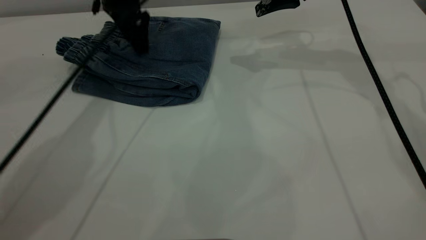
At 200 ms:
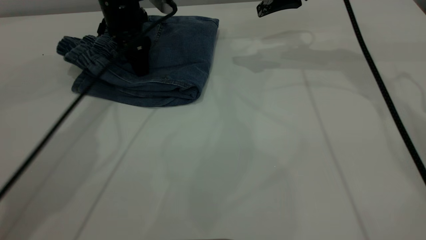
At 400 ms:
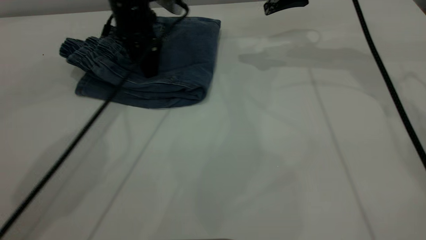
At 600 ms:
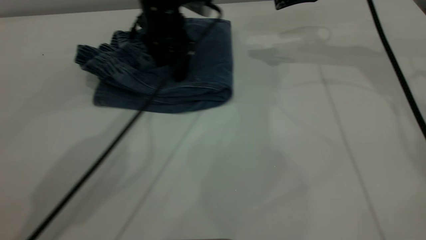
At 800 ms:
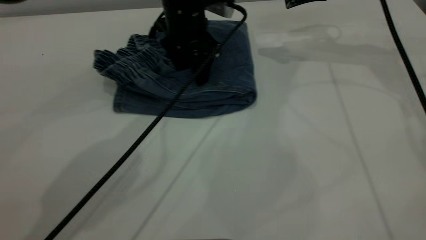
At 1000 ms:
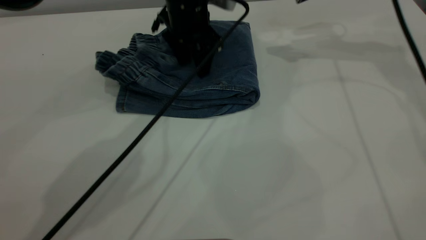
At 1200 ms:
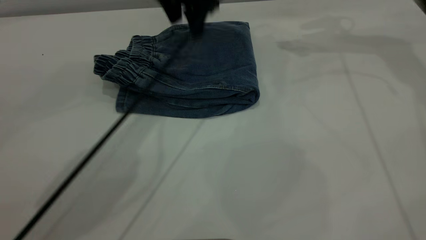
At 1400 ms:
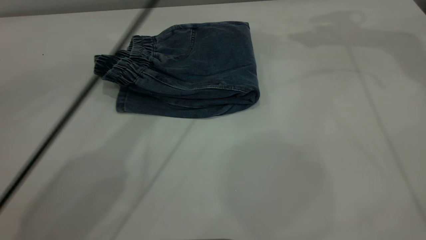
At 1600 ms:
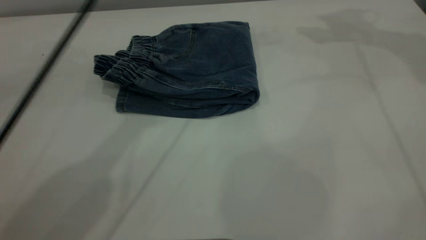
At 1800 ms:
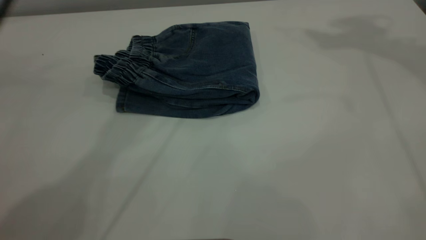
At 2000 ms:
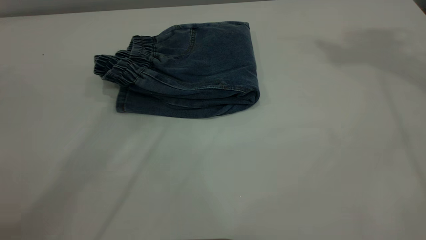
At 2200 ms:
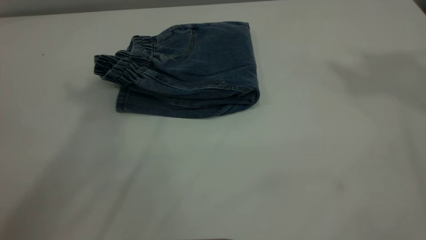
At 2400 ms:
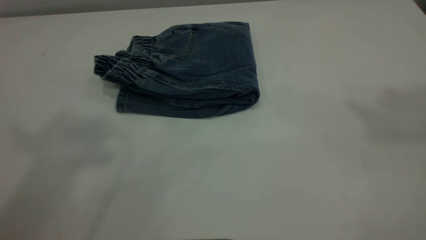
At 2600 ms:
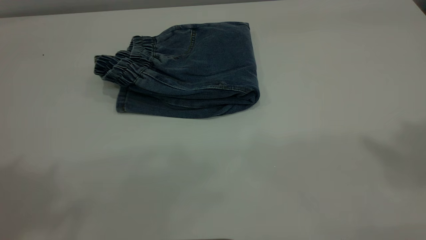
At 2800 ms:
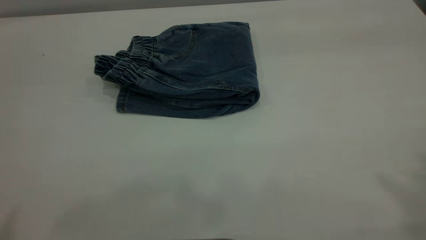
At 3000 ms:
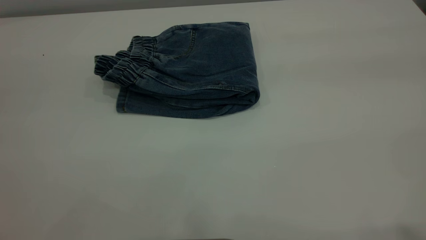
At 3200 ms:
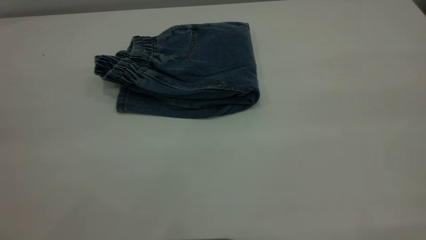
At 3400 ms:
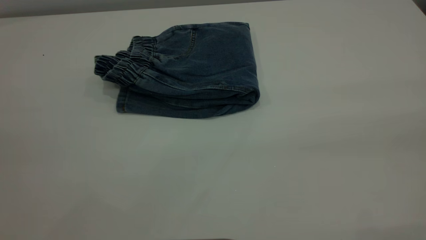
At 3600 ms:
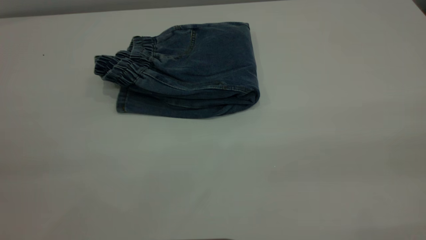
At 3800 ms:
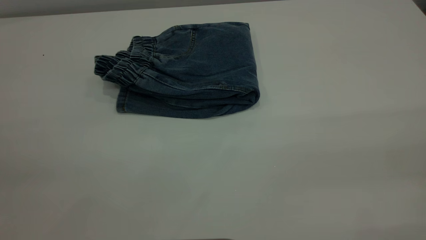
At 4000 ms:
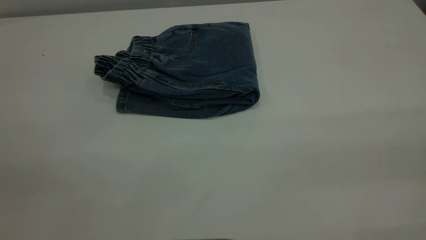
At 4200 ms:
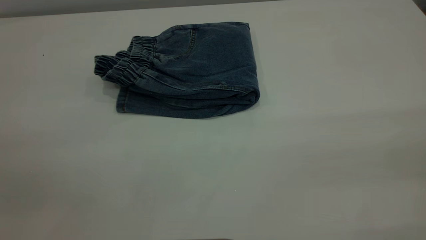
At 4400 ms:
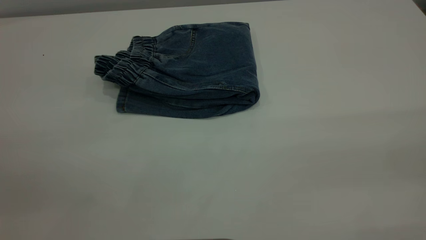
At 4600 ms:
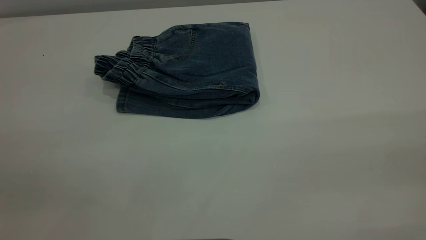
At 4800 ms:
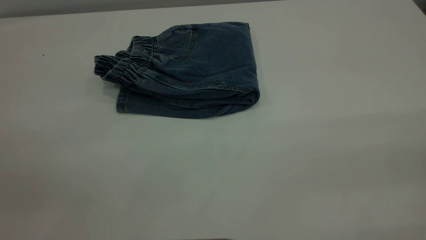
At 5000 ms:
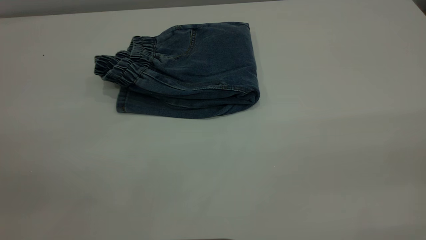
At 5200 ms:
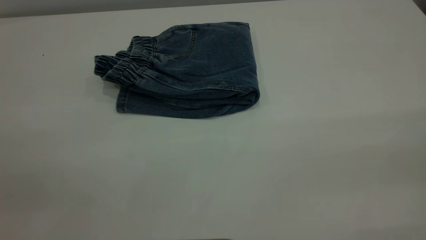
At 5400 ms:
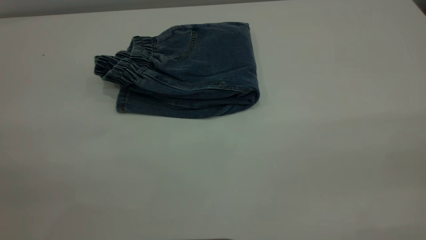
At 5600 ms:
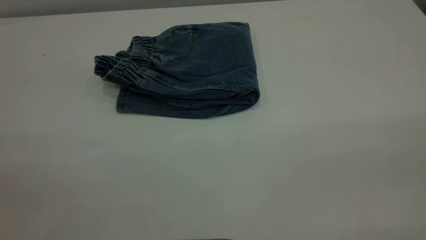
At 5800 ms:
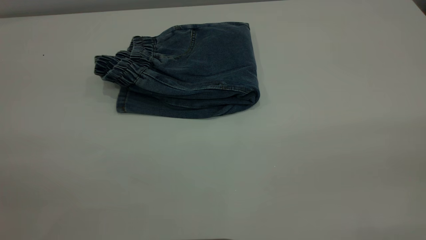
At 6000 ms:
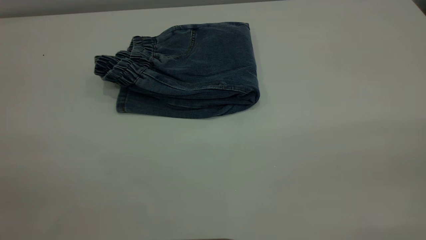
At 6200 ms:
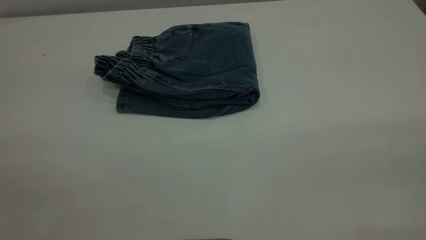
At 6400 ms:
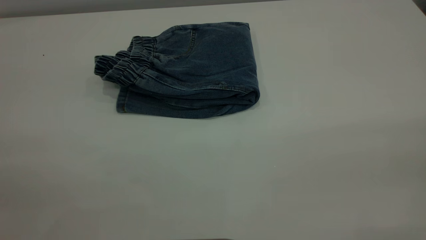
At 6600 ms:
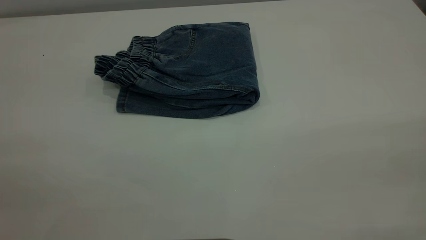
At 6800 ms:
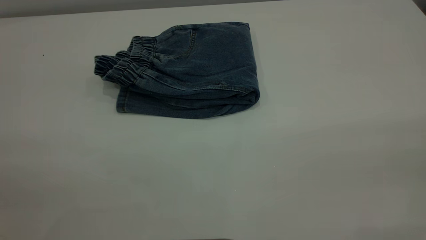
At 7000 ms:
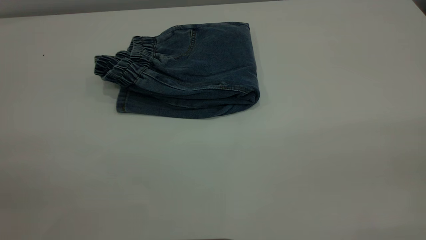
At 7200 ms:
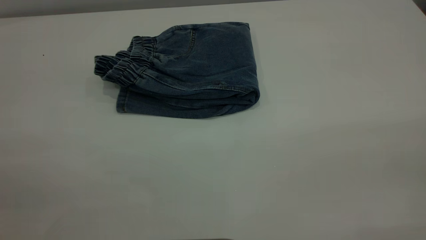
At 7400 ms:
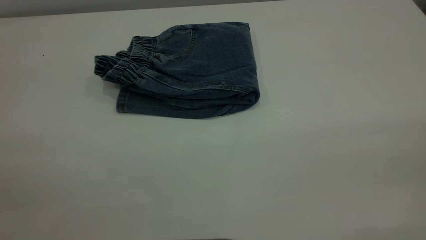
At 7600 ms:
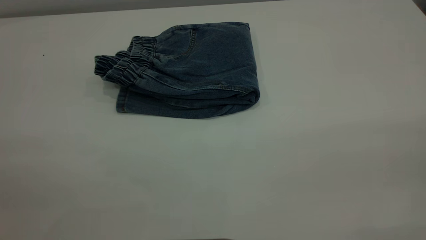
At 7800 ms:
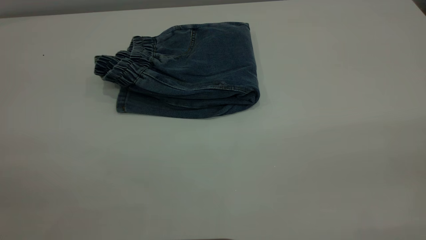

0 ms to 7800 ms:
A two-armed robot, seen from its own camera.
0 ms to 1600 ms: The left gripper travels upward by about 20 cm. The right gripper moves upward and to the right, some 25 cm.
1600 ms to 3200 ms: The left gripper shifts some 50 cm backward and to the left.
6200 ms to 7800 ms: Both grippers stay put.

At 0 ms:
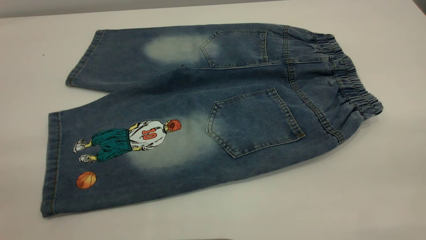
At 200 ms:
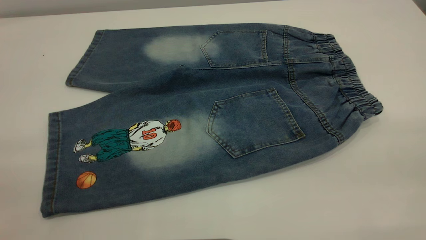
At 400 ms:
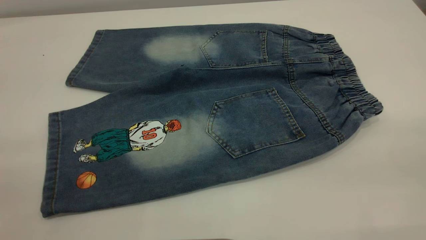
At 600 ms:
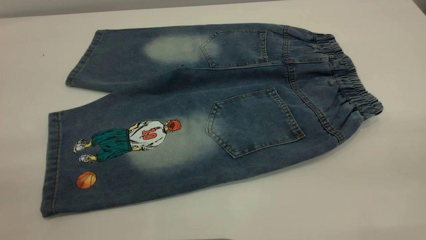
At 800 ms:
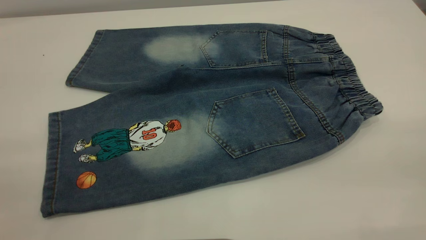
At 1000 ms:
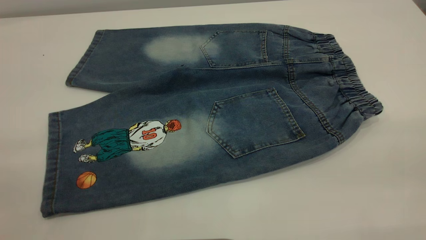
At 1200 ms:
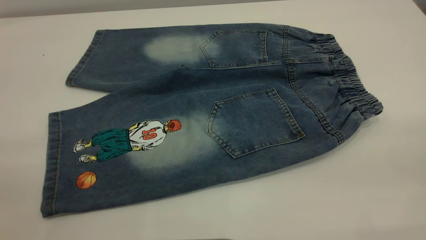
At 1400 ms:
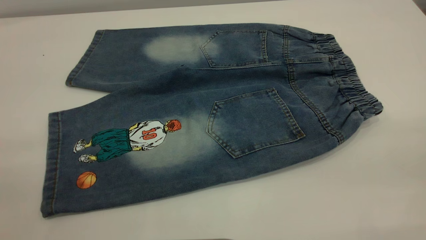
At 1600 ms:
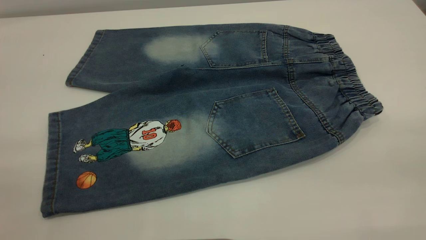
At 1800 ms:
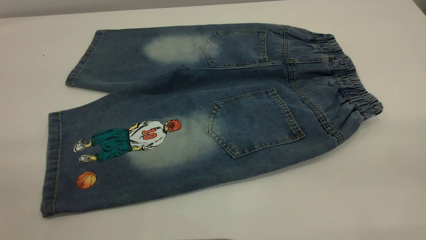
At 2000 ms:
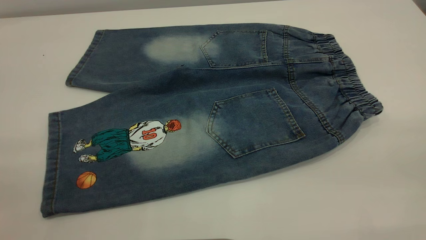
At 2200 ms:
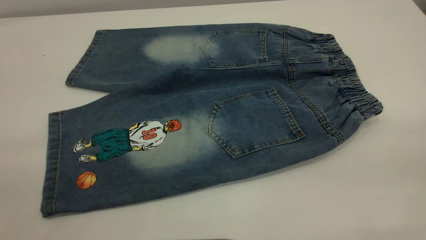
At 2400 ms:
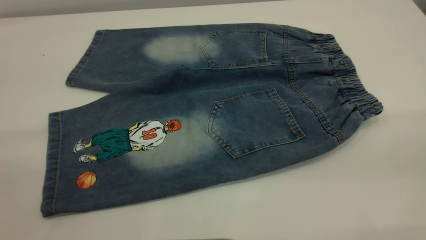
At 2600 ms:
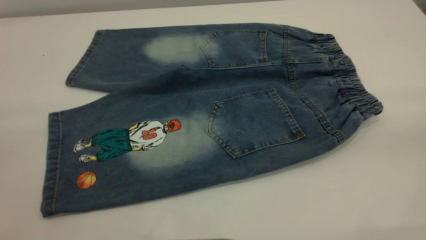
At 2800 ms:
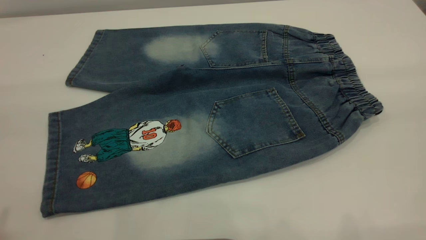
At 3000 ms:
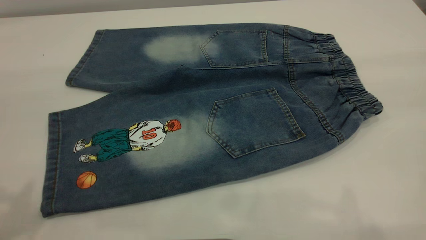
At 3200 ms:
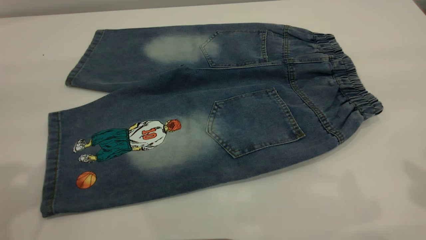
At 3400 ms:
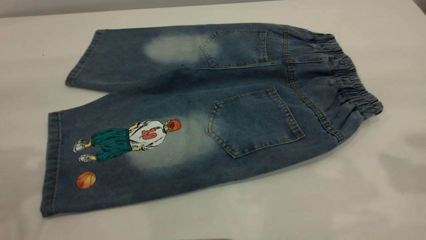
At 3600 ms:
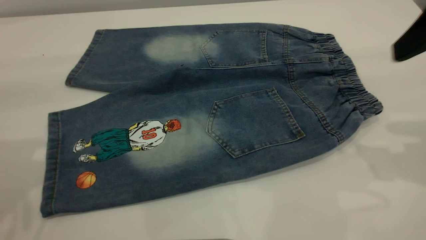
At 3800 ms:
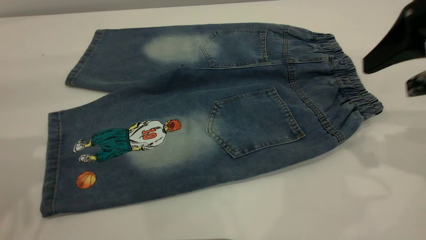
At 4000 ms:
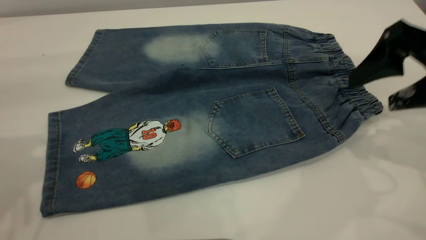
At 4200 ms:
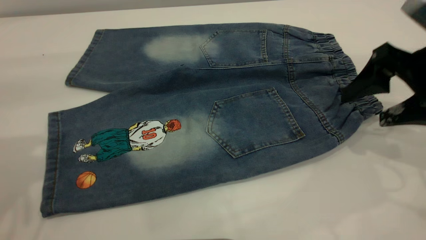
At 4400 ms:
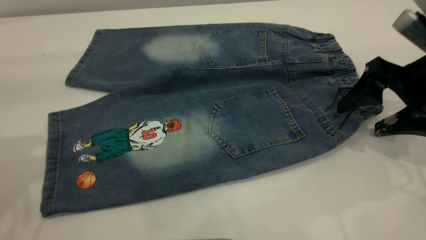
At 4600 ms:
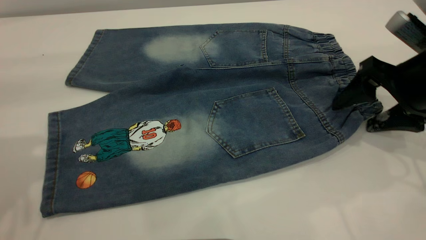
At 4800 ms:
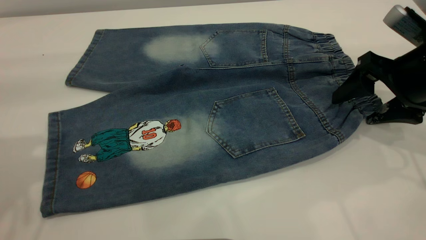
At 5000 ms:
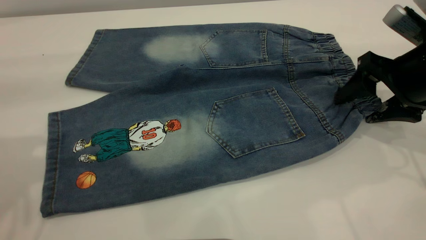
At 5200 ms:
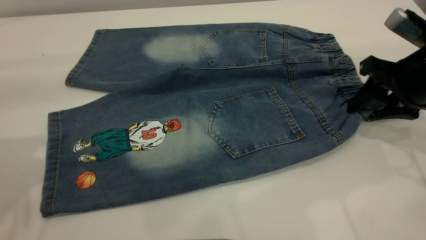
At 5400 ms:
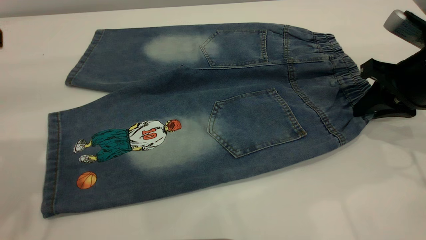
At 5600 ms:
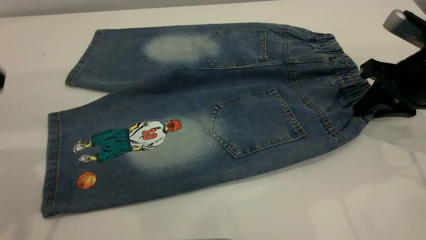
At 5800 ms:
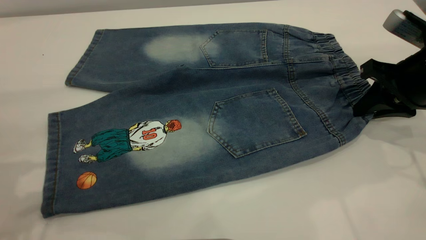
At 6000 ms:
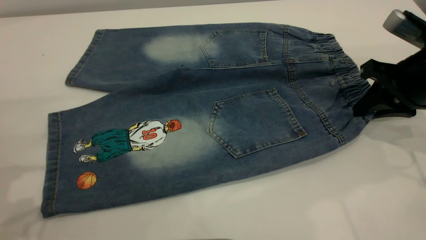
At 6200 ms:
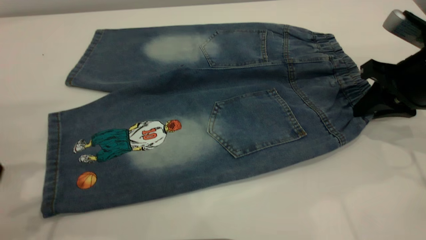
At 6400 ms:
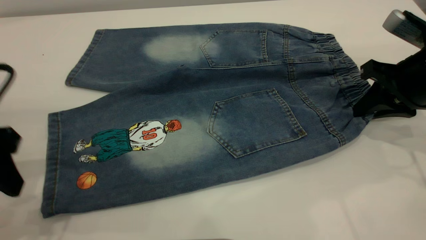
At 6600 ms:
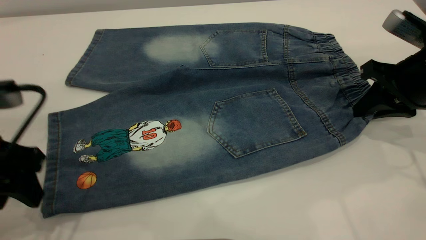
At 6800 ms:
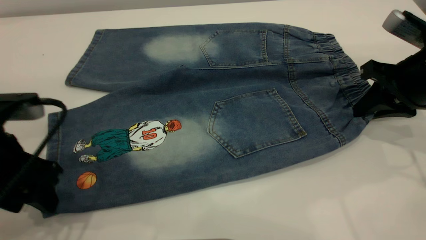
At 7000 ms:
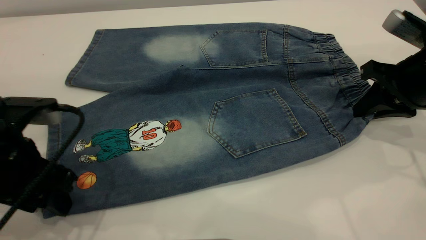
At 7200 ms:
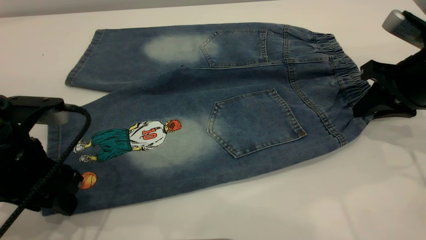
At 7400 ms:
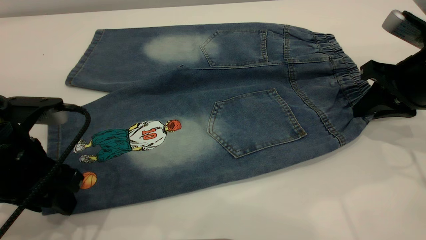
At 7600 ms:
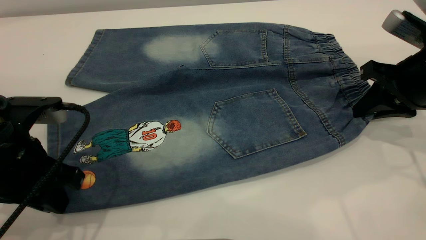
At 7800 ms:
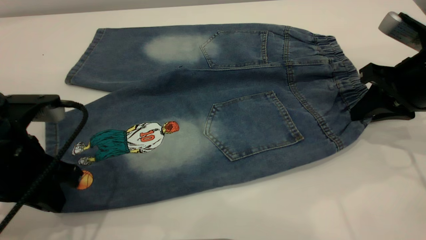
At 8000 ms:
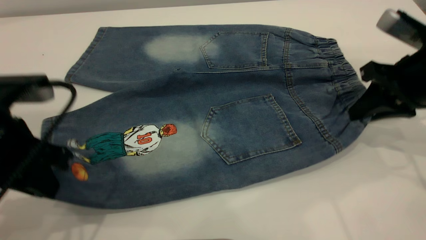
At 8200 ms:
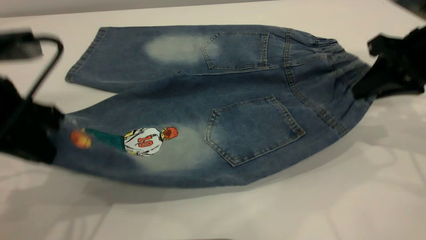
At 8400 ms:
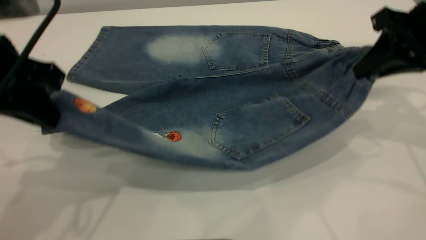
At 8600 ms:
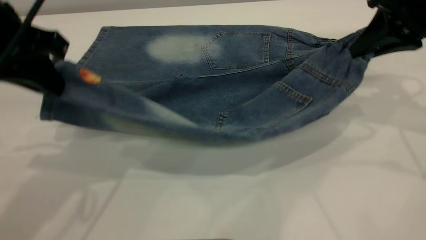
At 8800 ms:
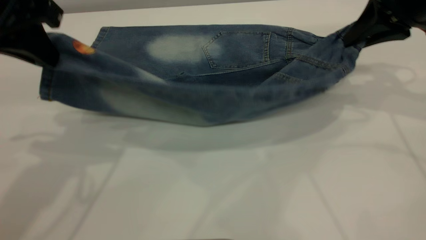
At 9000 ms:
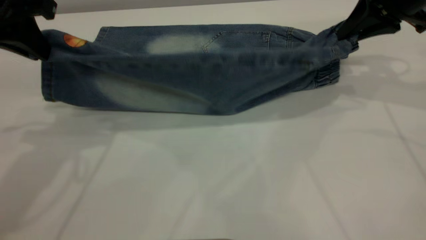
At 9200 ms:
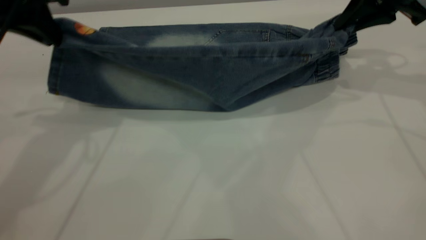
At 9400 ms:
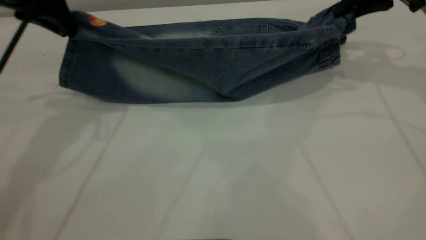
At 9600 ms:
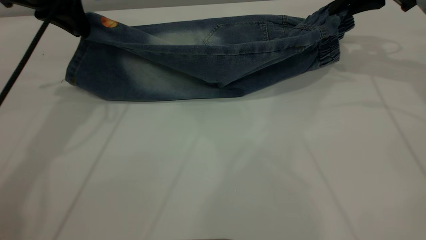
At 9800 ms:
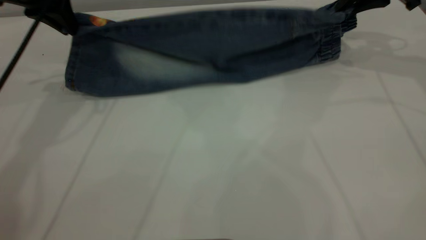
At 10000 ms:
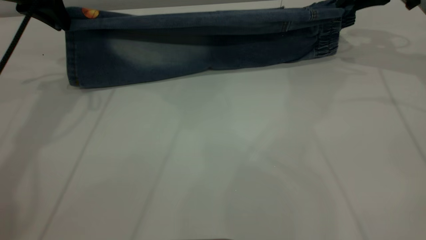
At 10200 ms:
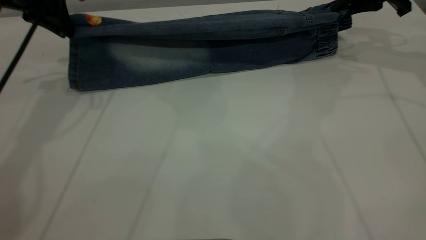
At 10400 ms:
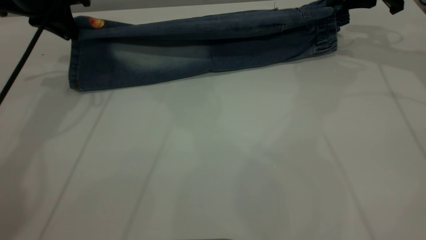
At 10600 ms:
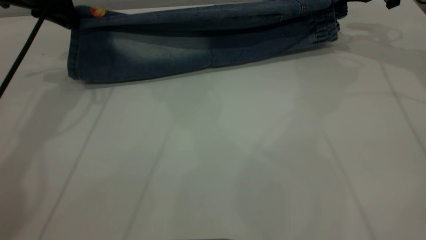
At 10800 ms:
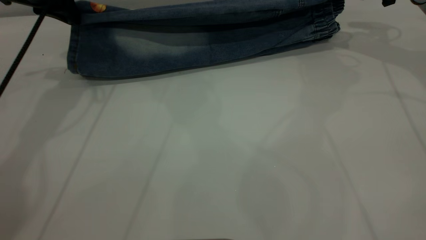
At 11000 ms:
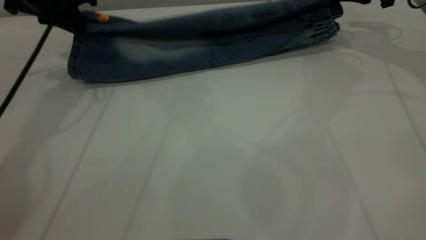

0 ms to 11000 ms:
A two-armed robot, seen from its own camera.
0 ms to 1600 ms: The two grippers keep their place.
3200 ms to 4800 ms: The right gripper goes some 25 cm downward and forward.
4800 ms to 6200 ms: The right gripper closes up.
6200 ms to 7800 ms: The left gripper moves downward and to the right, about 10 cm, and closes up.
7800 ms to 9400 ms: The grippers both shift forward and upward by about 20 cm.
9400 ms to 11000 ms: The right gripper heads forward, covering approximately 5 cm, and opens its fingers. The left gripper moves forward and downward, approximately 10 cm.
